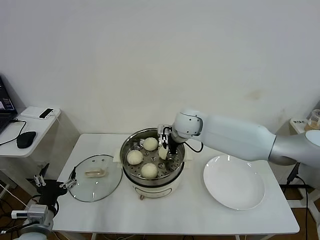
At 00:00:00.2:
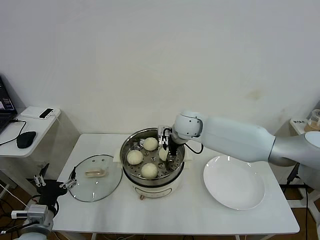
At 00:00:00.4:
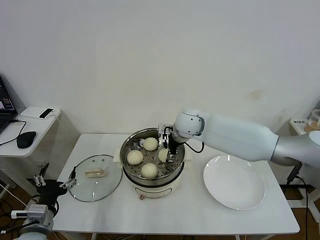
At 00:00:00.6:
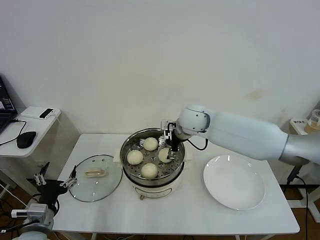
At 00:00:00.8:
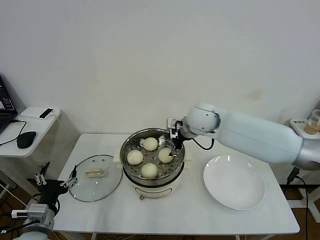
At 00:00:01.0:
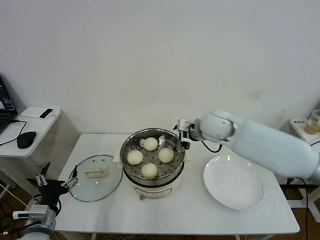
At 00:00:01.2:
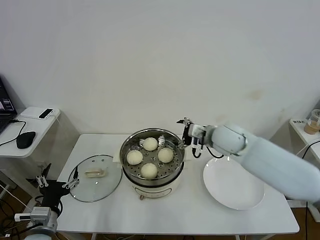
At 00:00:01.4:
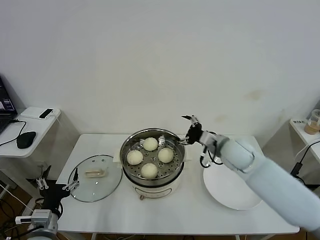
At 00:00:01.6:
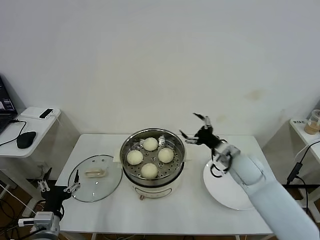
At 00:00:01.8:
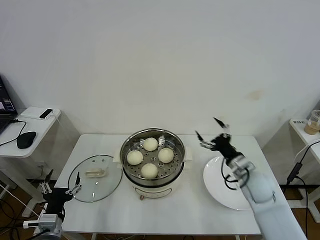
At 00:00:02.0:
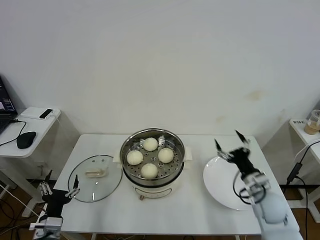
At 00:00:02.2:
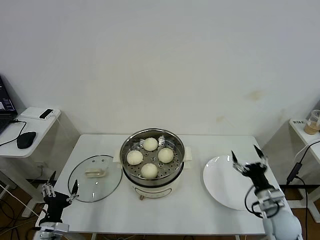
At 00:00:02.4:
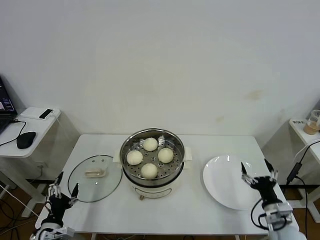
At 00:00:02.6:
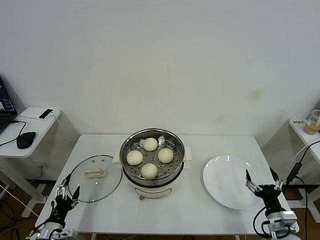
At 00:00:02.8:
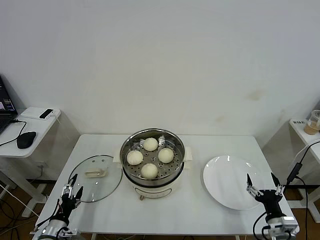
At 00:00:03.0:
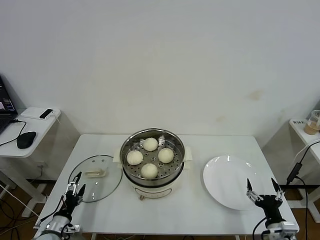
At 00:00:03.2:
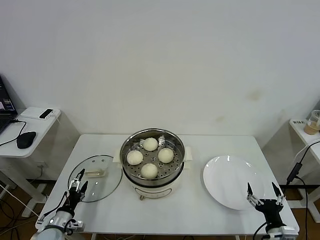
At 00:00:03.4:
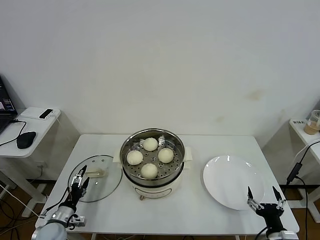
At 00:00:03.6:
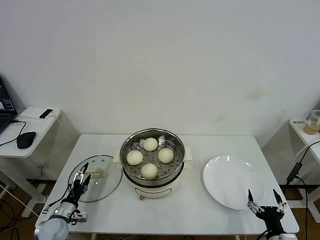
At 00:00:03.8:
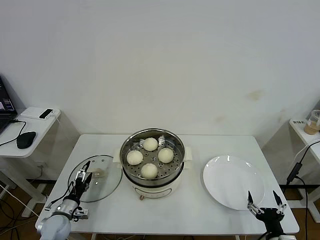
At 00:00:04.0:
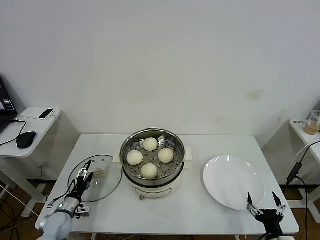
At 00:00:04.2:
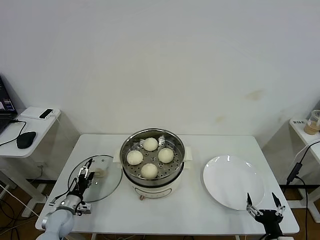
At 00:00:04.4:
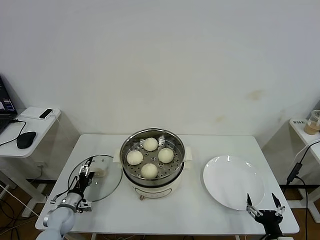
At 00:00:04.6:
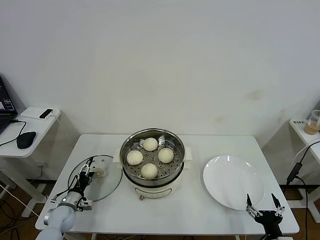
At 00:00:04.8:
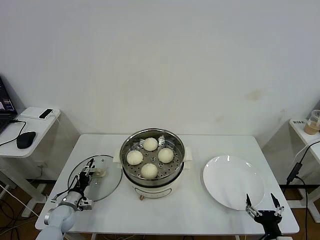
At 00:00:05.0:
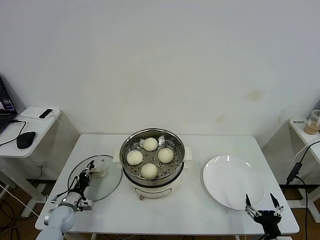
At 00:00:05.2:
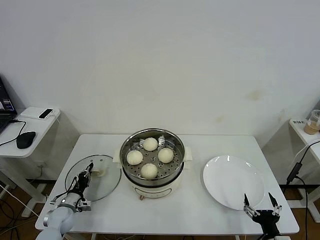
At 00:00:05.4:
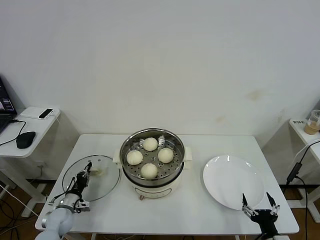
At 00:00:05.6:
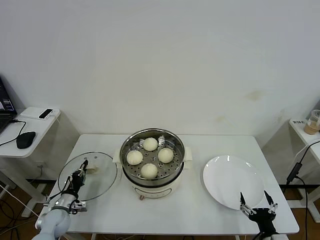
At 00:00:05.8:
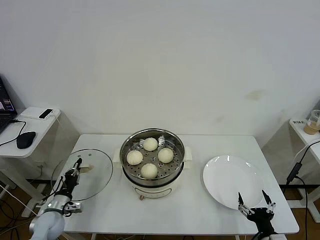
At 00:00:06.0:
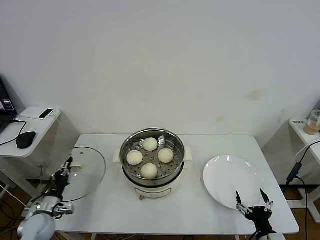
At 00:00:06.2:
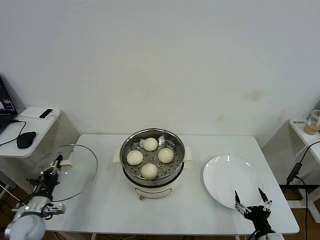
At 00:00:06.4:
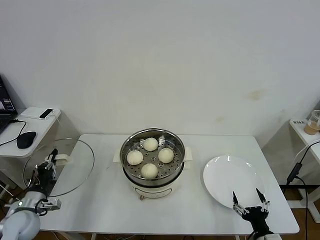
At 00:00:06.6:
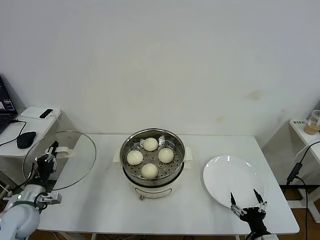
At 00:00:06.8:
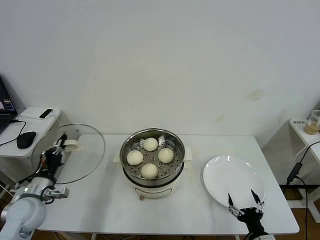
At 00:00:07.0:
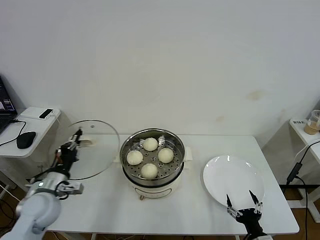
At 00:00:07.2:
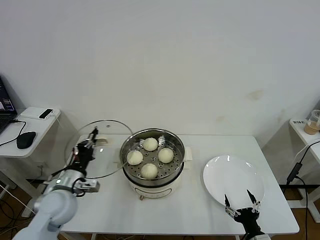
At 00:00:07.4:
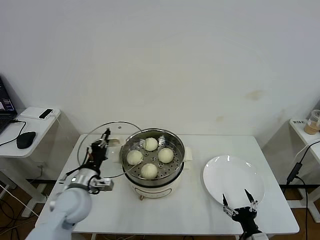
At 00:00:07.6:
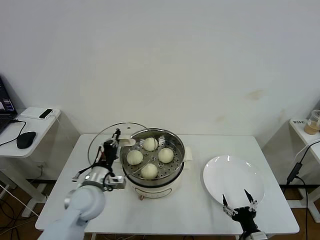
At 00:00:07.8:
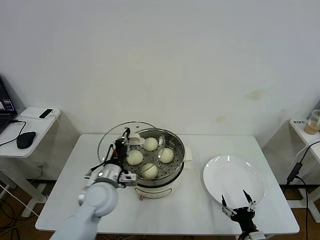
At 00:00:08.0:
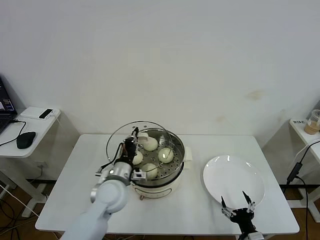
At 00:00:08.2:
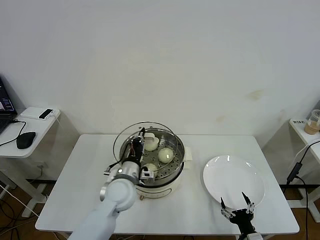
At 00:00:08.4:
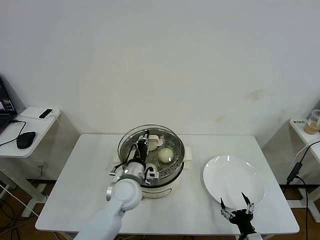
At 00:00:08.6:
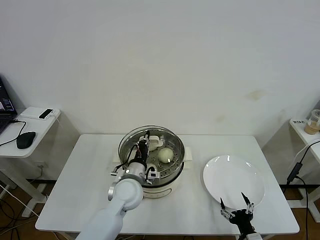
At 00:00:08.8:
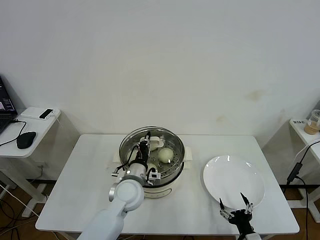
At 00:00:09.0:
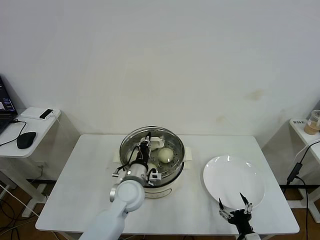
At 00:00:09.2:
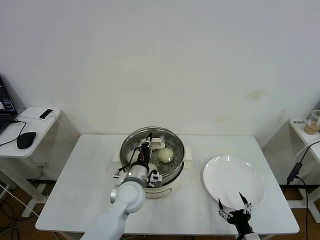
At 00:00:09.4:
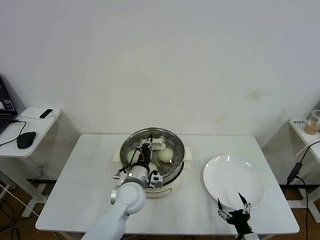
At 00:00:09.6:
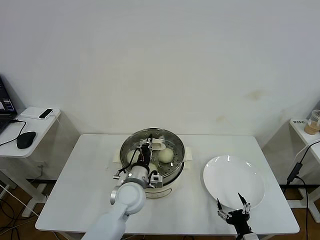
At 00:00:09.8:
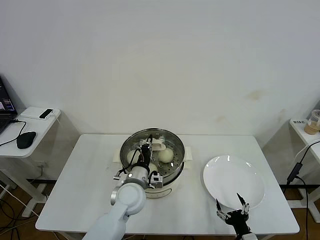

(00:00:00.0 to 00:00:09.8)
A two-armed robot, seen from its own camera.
Task of the whole recording: take steamed baozi put them in steamer then cover it.
Step, 00:00:00.8 - 00:00:05.2: Grasp the pot lid with left gripper.
00:00:00.0 - 00:00:01.4: The right gripper travels to the right and backward by some 15 cm, and opens up.
00:00:01.4 - 00:00:02.8: The right gripper heads backward, downward and to the right, covering about 35 cm. Meanwhile the left gripper heads downward and to the left, covering roughly 15 cm.
00:00:02.8 - 00:00:04.2: The right gripper goes roughly 5 cm backward, while the left gripper heads forward, covering about 10 cm.
00:00:04.2 - 00:00:05.6: The left gripper closes its fingers.
00:00:05.6 - 00:00:07.0: The left gripper goes approximately 20 cm upward.
00:00:07.0 - 00:00:08.4: The left gripper shifts approximately 25 cm to the right.
00:00:08.4 - 00:00:09.8: There are only small adjustments of the grippers.

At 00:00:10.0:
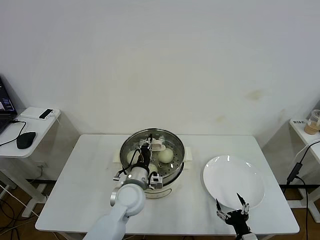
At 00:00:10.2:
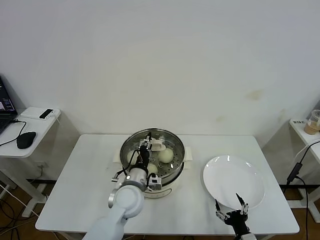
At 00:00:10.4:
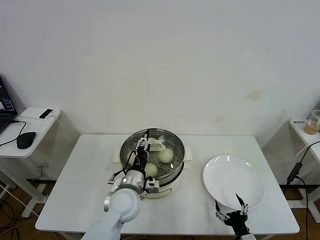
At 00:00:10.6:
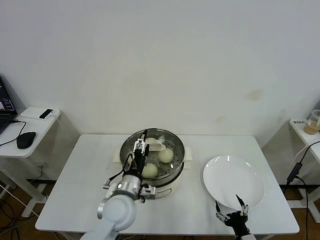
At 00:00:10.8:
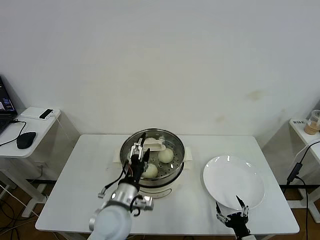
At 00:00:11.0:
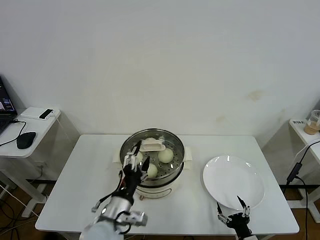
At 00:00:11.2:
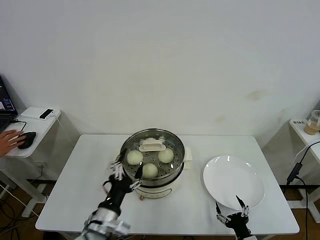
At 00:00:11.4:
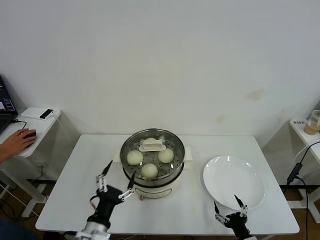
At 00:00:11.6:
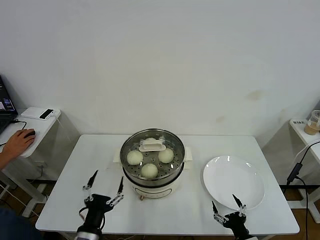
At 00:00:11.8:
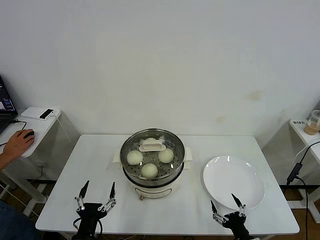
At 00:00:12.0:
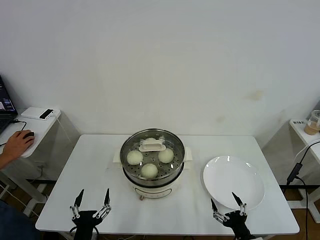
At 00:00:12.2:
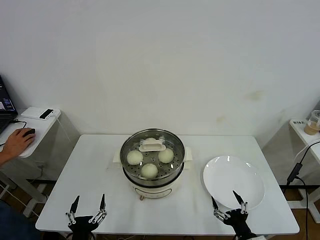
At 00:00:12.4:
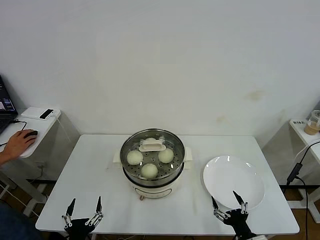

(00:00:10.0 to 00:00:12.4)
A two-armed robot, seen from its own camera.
Task of the whole recording: take steamed baozi put them in steamer then cover it.
00:00:10.0 - 00:00:11.2: The left gripper is displaced backward and to the left by approximately 15 cm, and opens its fingers.
00:00:11.2 - 00:00:12.4: The left gripper goes approximately 15 cm backward, downward and to the left. Meanwhile the right gripper shifts by approximately 5 cm.
